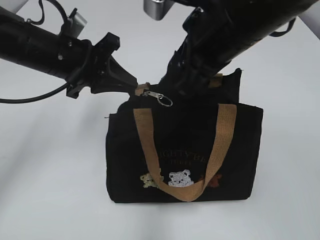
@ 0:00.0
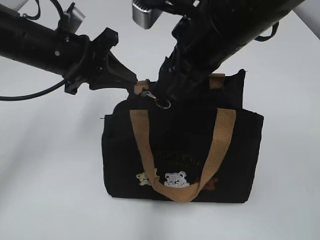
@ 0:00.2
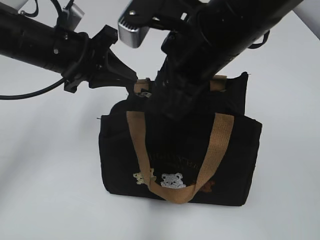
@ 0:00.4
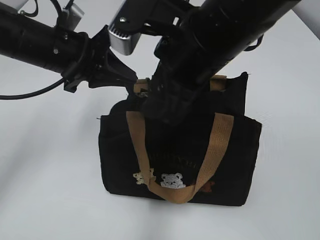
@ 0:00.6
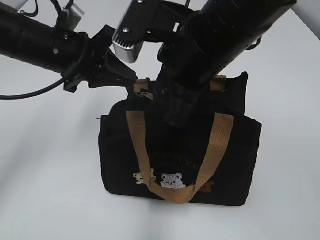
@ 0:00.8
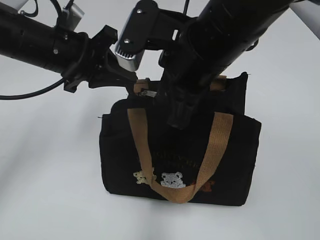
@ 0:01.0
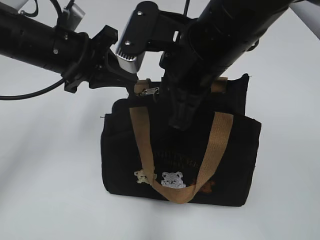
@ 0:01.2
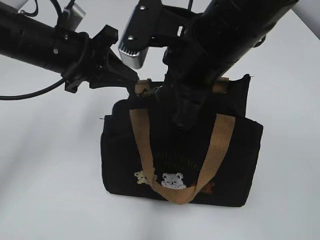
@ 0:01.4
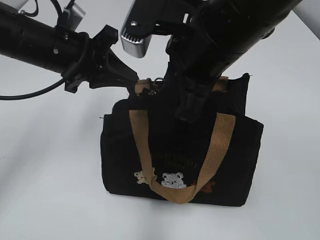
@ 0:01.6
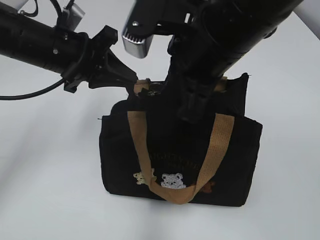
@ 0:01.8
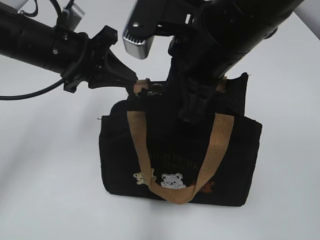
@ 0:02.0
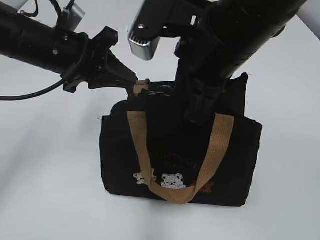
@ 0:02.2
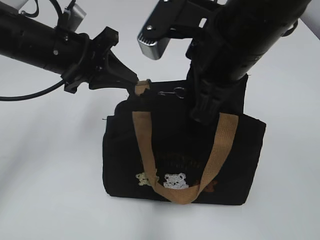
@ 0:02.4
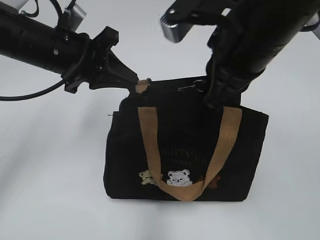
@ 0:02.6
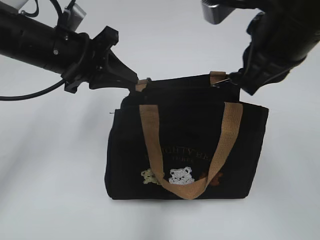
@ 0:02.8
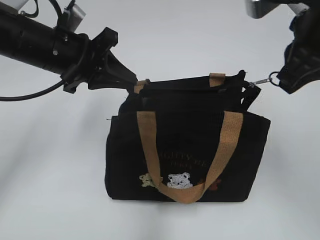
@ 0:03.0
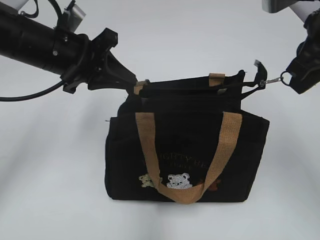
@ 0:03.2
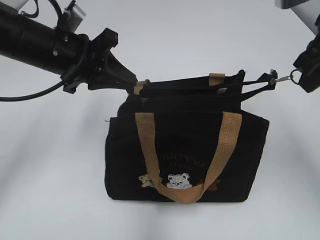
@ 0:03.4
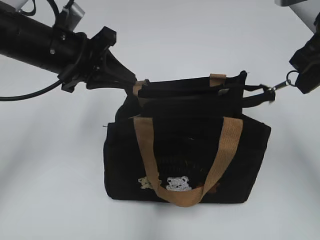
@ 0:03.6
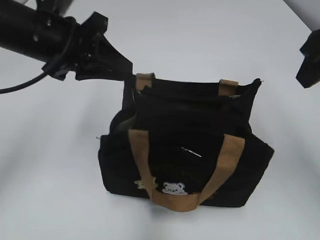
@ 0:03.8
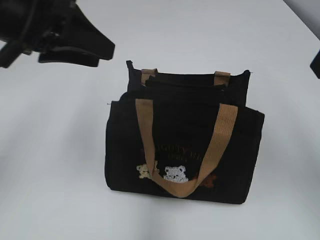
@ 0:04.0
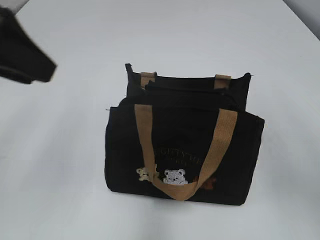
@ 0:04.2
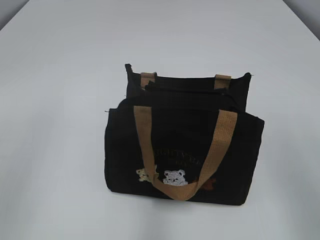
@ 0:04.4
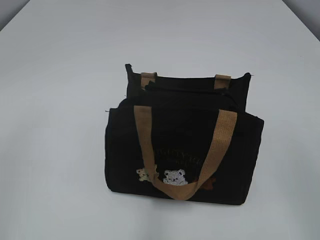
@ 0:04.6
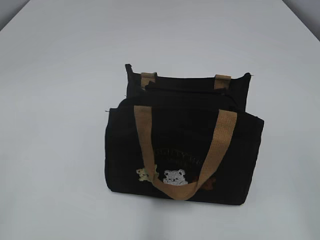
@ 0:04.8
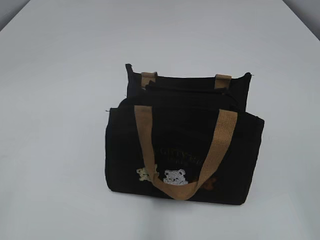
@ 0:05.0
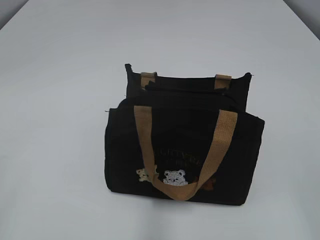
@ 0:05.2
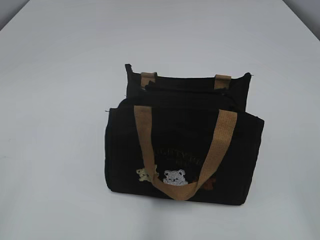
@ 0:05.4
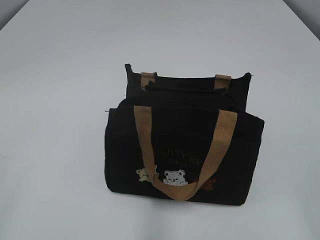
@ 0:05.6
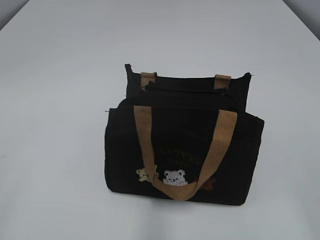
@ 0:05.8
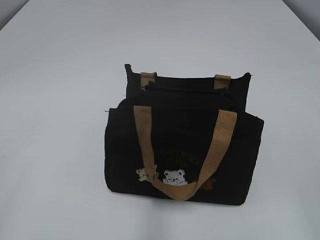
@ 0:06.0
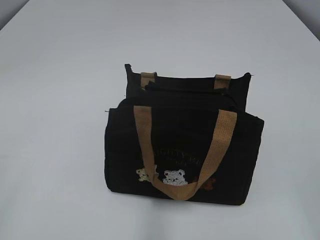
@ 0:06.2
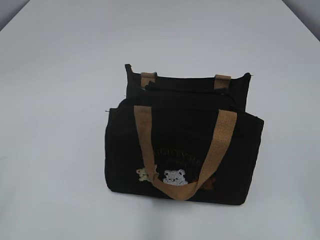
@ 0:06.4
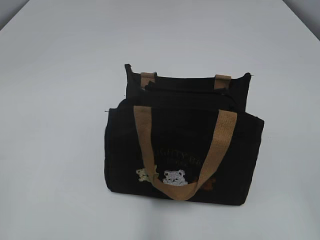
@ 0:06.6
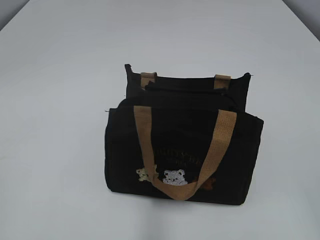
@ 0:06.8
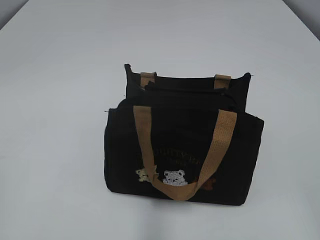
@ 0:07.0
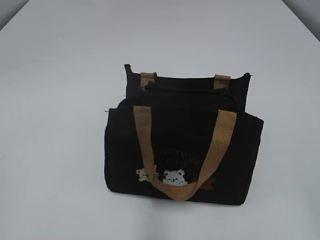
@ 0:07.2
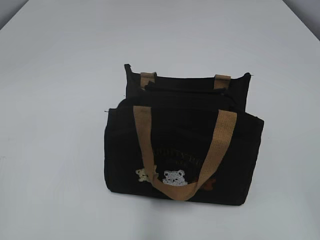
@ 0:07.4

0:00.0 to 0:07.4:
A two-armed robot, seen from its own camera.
Step, 0:00.0 to 0:03.4: Pull open the zipper with your right hand.
0:00.0 to 0:01.4: The right gripper changes place by about 5 cm, and closes up.
0:01.4 to 0:03.0: The right gripper heads to the right, covering roughly 10 cm, and closes its fingers.
0:03.0 to 0:04.4: The left gripper heads backward, upward and to the left, covering about 20 cm, and opens. The right gripper travels backward and to the right by approximately 15 cm, and opens up.

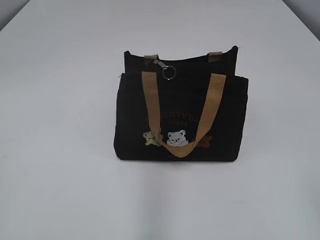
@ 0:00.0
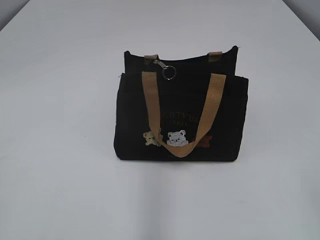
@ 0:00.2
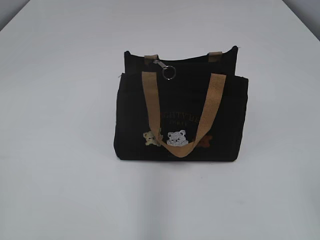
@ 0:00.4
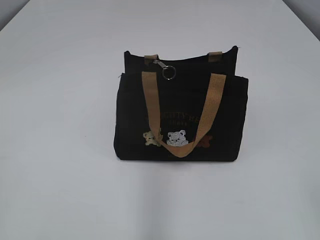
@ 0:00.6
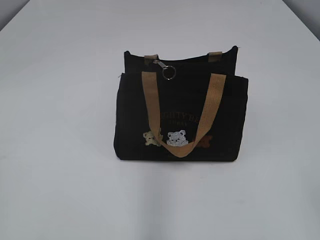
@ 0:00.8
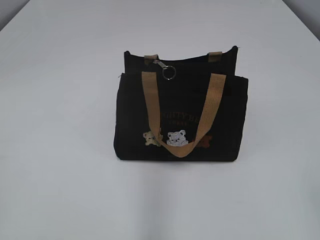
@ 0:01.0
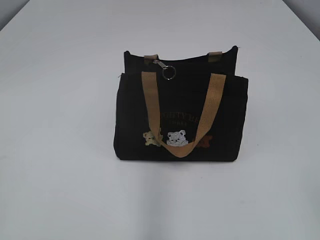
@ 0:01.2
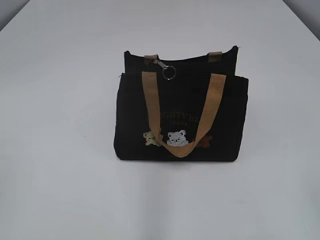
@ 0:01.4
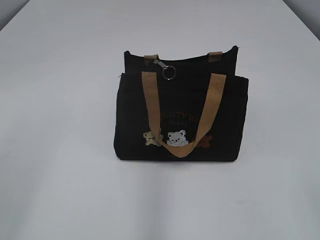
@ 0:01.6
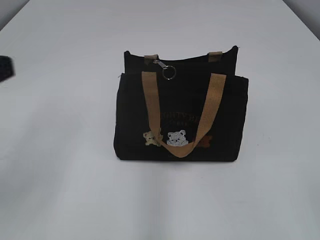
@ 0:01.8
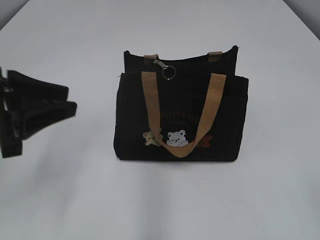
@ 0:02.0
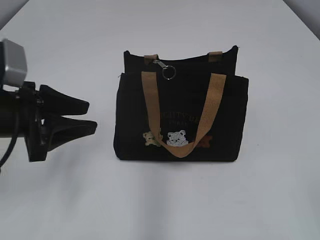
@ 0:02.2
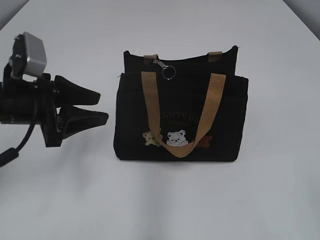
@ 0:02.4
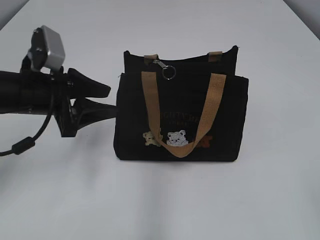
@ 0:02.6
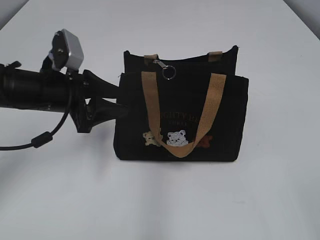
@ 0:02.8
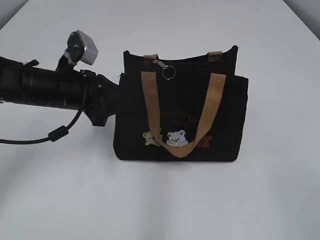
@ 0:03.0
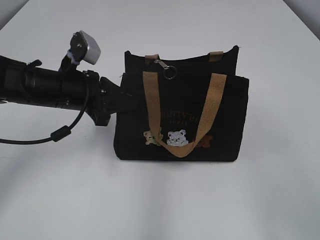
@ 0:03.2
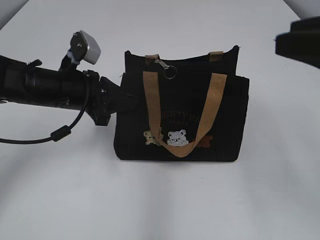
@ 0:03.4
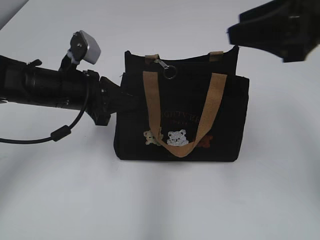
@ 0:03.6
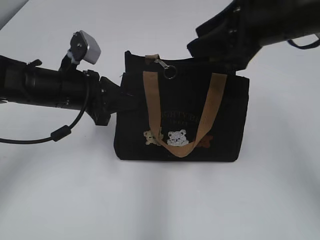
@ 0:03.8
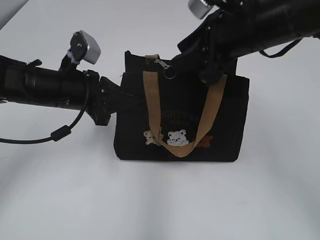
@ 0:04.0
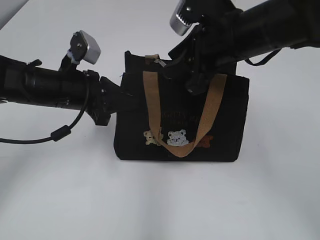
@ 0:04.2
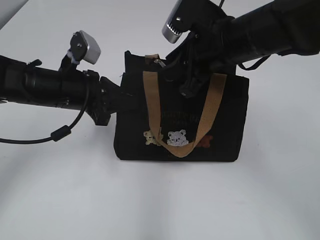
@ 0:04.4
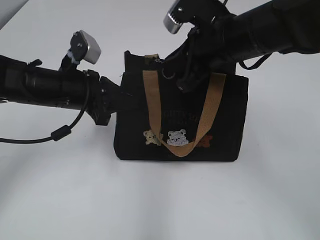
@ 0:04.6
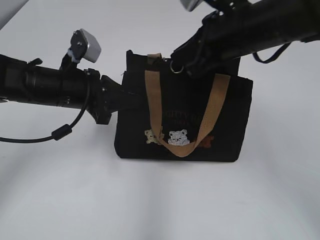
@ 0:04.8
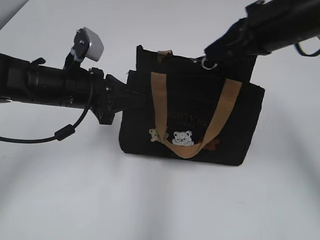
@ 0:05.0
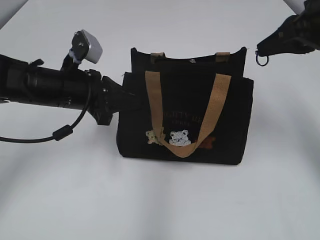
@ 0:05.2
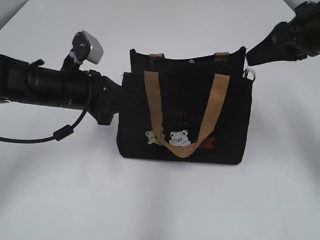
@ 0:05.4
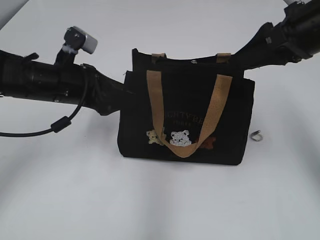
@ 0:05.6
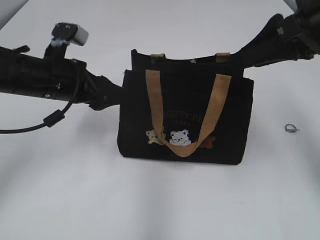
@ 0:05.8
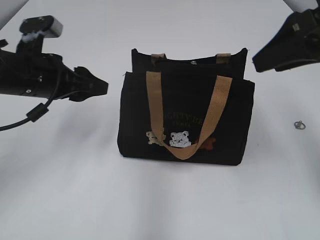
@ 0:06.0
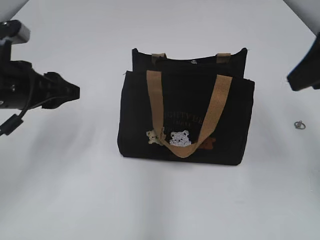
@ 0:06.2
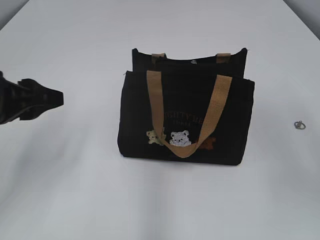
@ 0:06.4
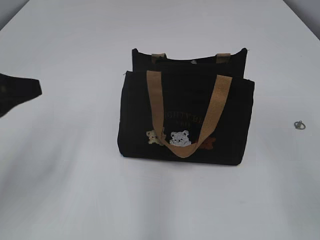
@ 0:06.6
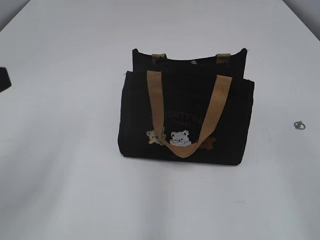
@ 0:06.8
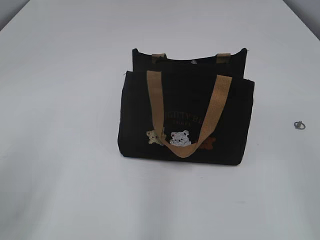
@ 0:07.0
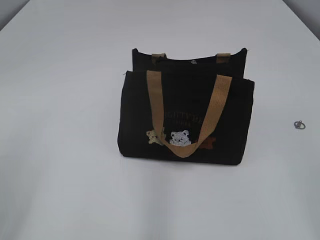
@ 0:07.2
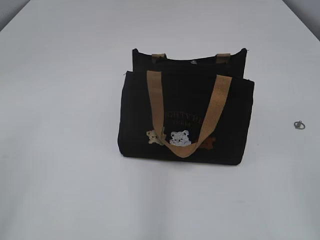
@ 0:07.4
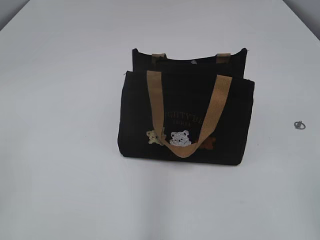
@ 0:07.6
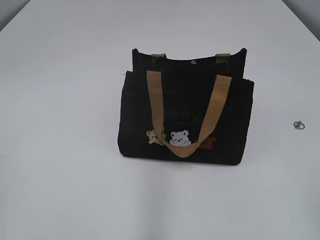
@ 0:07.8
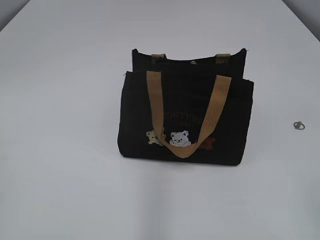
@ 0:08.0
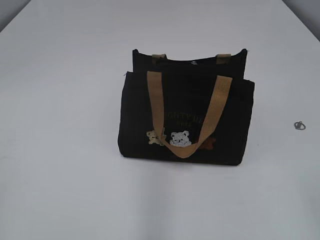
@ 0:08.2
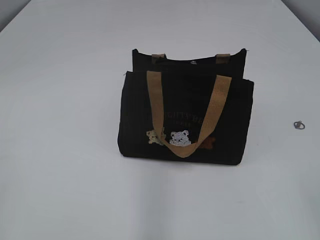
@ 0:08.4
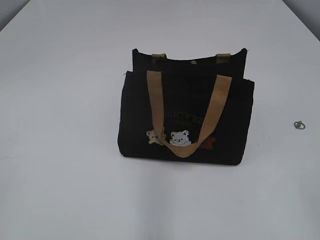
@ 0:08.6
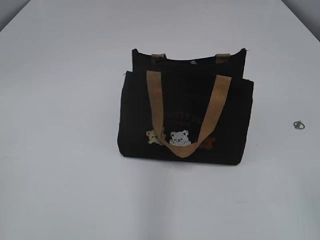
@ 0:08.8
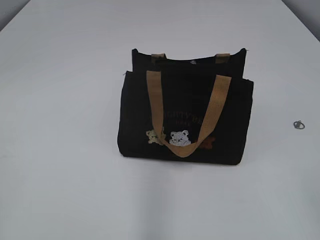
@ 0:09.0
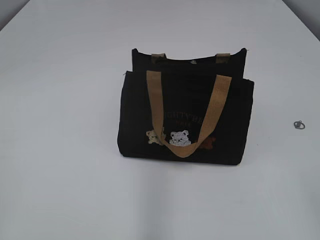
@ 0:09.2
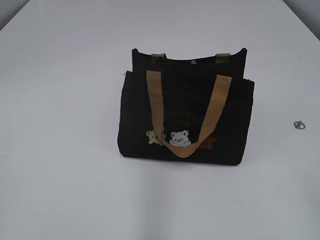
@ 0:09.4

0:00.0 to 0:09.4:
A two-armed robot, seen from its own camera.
Step, 0:00.0 to 0:05.6: Zip up the bag with your right hand.
0:01.6 to 0:03.2: The left gripper is displaced forward, downward and to the right by about 35 cm, and closes, while the right gripper shifts roughly 10 cm forward.
0:03.2 to 0:04.8: The right gripper is displaced forward and to the left by approximately 25 cm, and closes its fingers.
0:04.8 to 0:06.2: The right gripper travels to the right, backward and upward by approximately 15 cm, and opens up. The left gripper goes some 5 cm to the left, and opens its fingers.
0:06.2 to 0:07.8: The grippers both shift backward by about 25 cm.

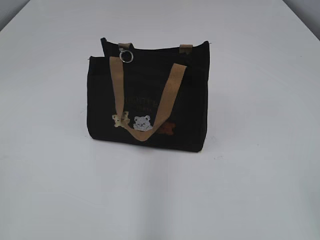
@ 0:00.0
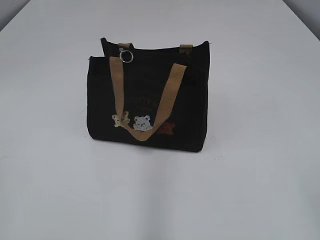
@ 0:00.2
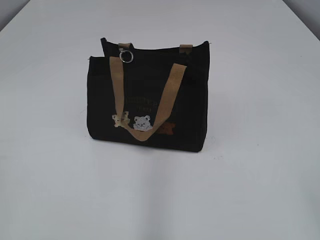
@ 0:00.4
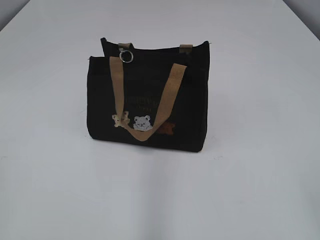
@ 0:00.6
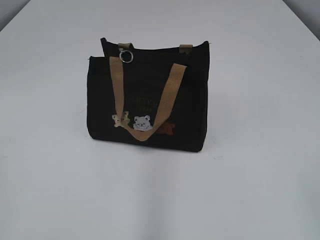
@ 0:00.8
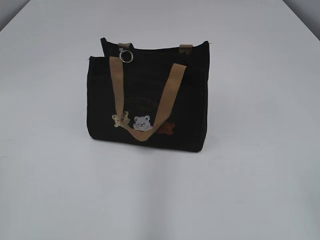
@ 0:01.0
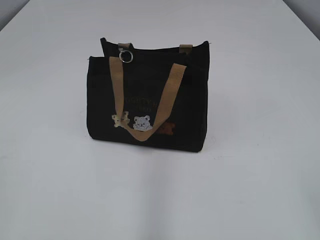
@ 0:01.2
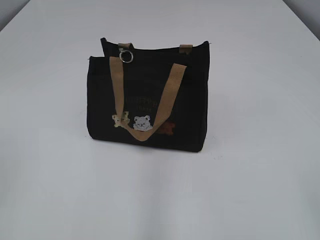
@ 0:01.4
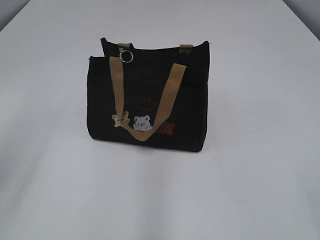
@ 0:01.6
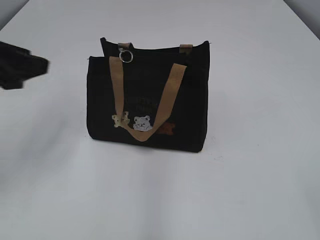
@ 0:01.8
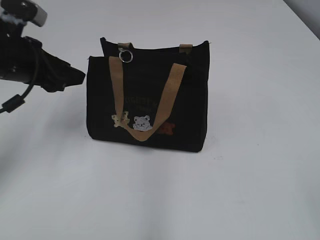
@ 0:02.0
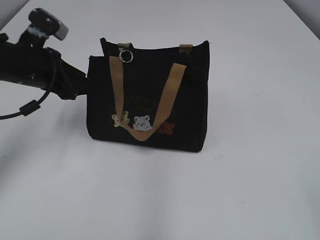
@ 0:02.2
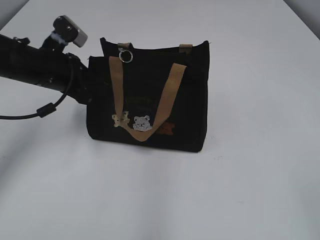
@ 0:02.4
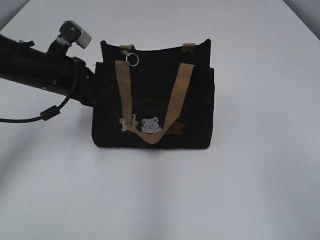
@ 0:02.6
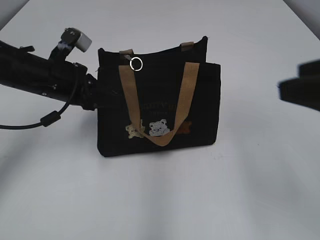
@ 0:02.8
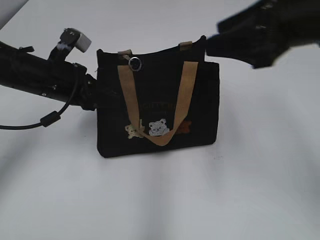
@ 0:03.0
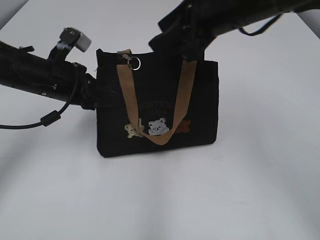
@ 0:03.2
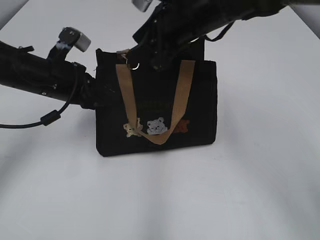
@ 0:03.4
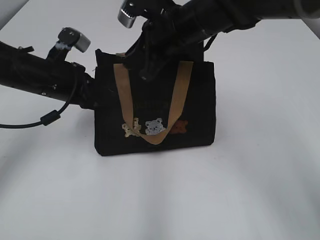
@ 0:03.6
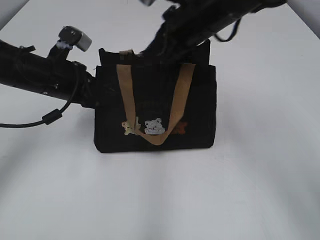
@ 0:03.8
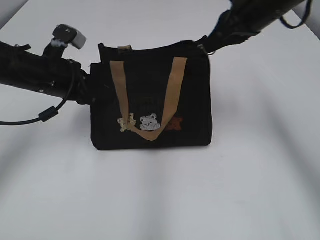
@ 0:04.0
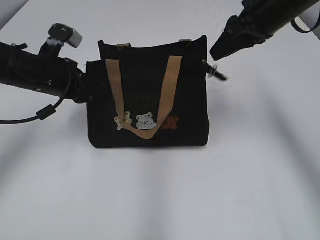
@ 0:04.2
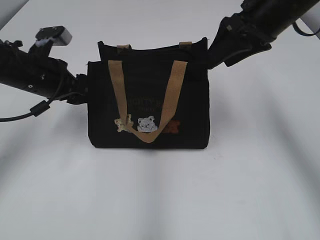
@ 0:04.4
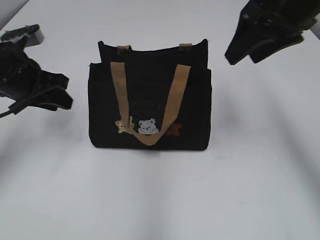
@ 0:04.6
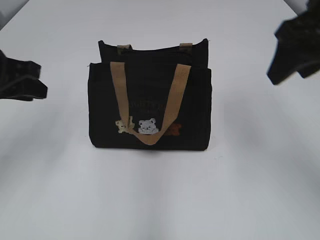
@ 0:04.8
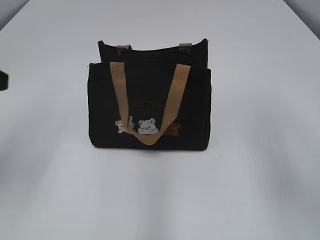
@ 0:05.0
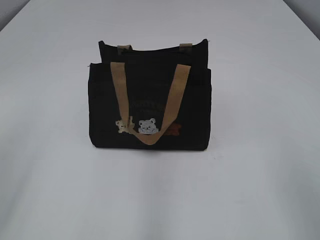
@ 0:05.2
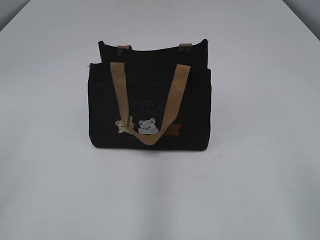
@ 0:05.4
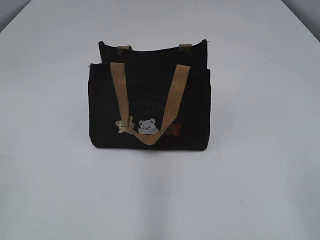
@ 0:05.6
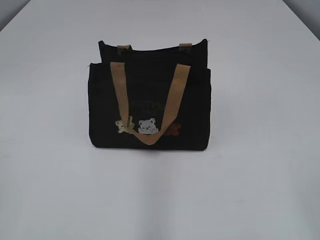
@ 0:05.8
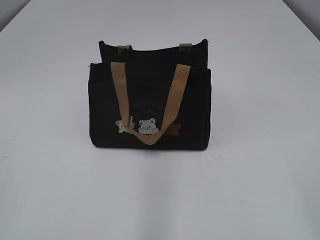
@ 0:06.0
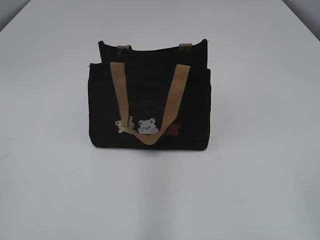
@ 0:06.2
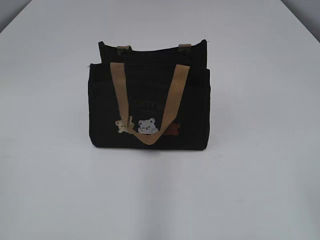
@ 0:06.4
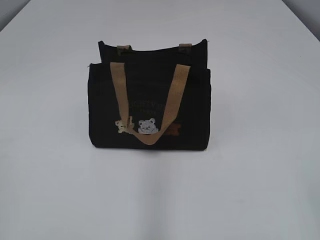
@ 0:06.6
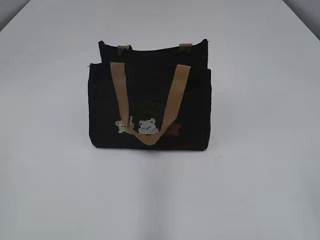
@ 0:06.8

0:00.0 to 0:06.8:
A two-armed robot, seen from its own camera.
Step, 0:00.0 to 0:04.0: Pull open the zipper with your right hand.
0:01.4 to 0:02.8: The left gripper travels forward by roughly 35 cm, and closes. Meanwhile the right gripper goes approximately 5 cm forward.
0:02.8 to 0:04.0: The right gripper moves forward and to the left, some 35 cm, and closes up.
0:04.0 to 0:05.4: The right gripper shifts some 35 cm backward and to the right, and opens up. The left gripper is displaced backward, upward and to the left by roughly 30 cm, and opens its fingers.
